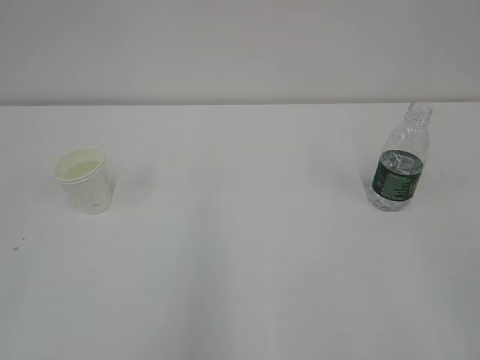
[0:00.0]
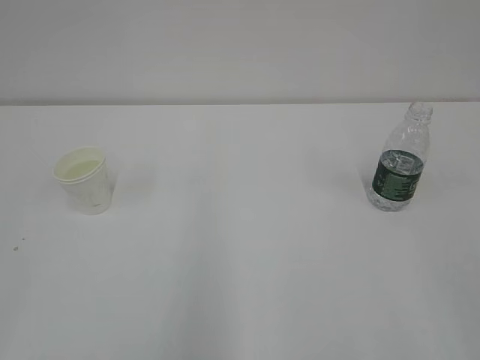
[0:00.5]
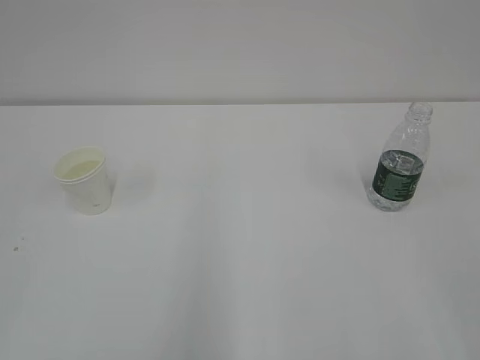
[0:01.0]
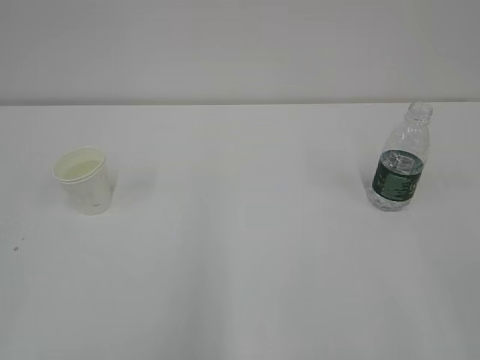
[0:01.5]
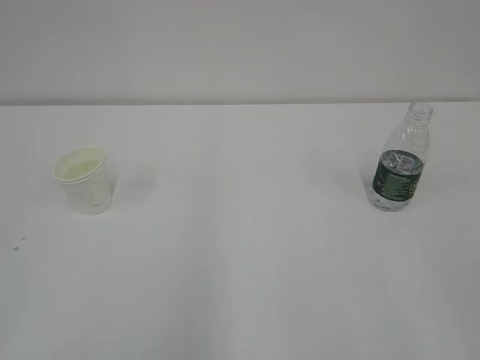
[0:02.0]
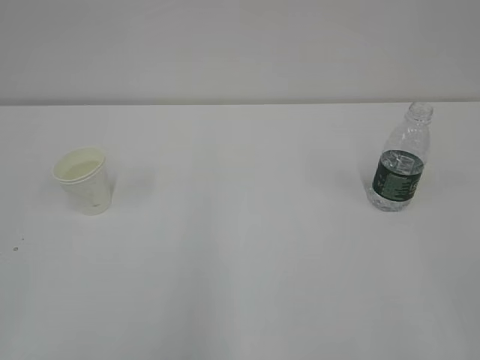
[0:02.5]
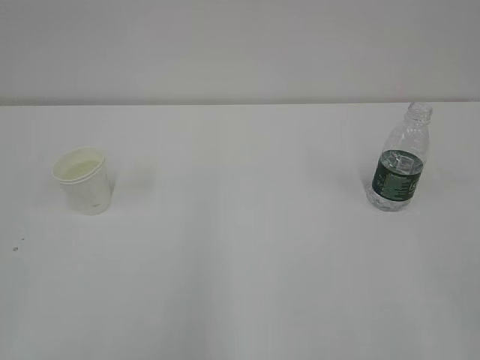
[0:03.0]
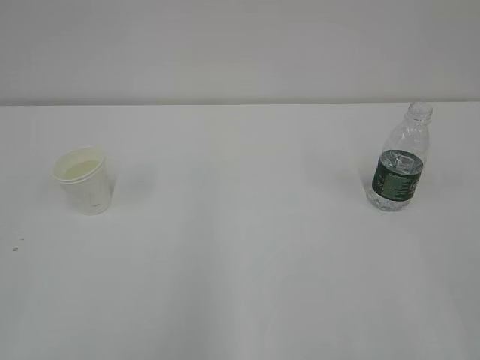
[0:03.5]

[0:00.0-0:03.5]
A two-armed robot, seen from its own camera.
0:02.0 to 0:03.5: Both grippers stay about where they are.
